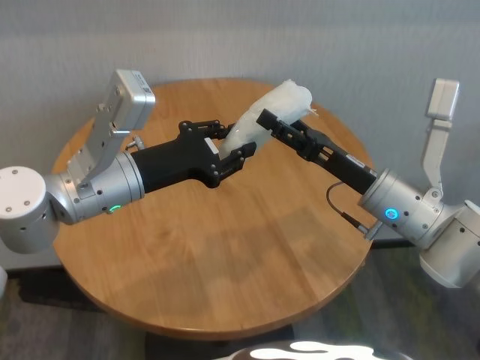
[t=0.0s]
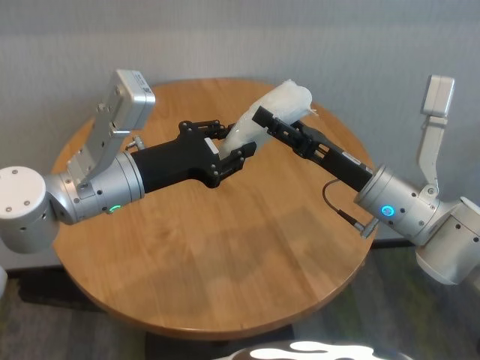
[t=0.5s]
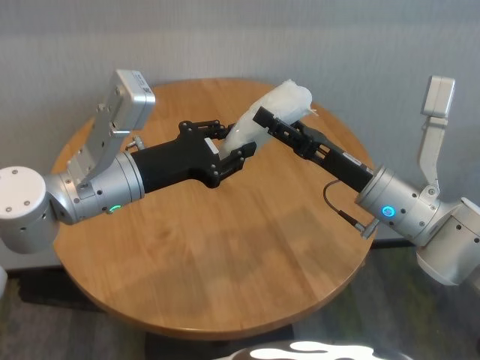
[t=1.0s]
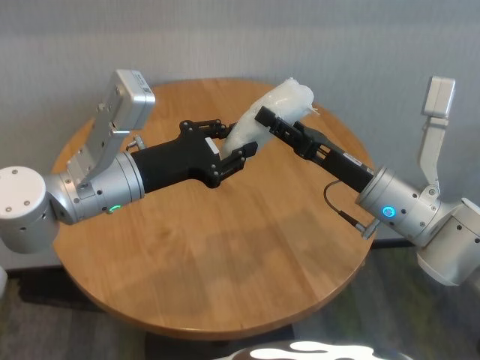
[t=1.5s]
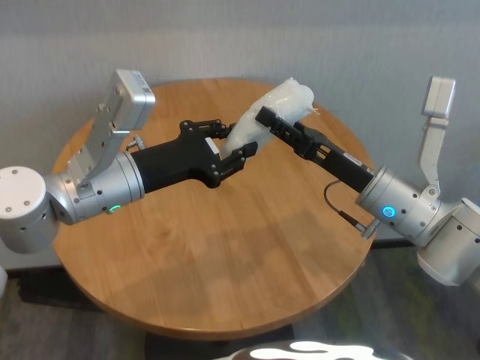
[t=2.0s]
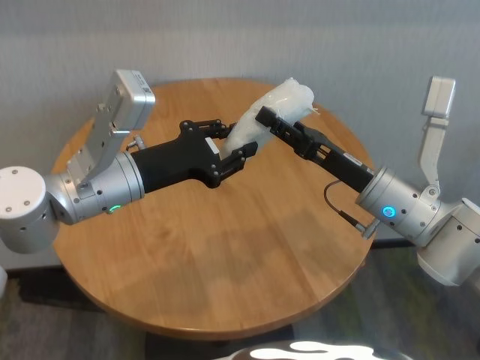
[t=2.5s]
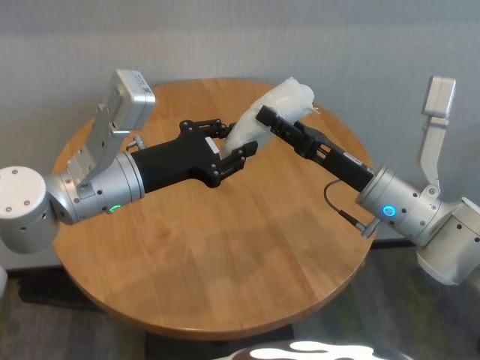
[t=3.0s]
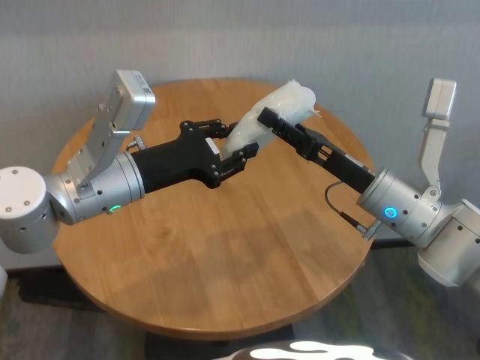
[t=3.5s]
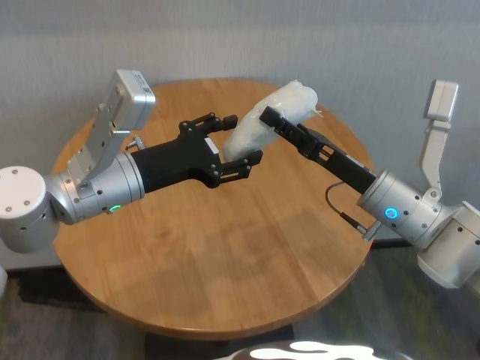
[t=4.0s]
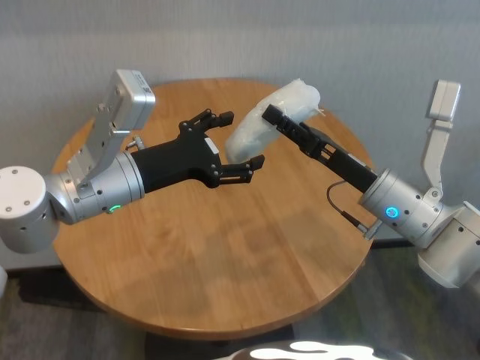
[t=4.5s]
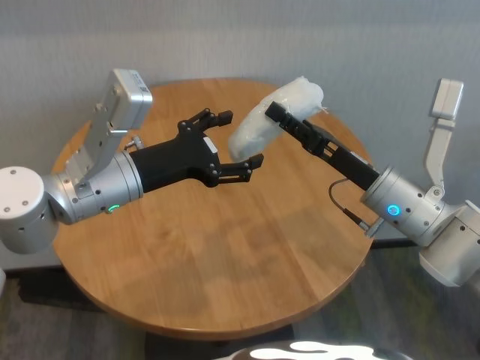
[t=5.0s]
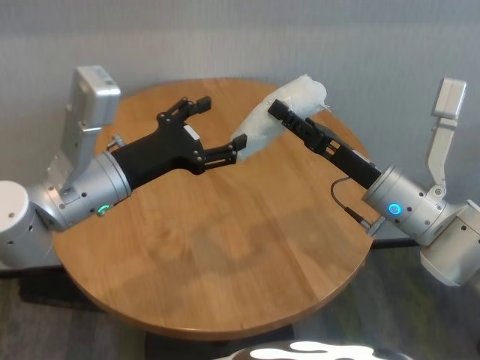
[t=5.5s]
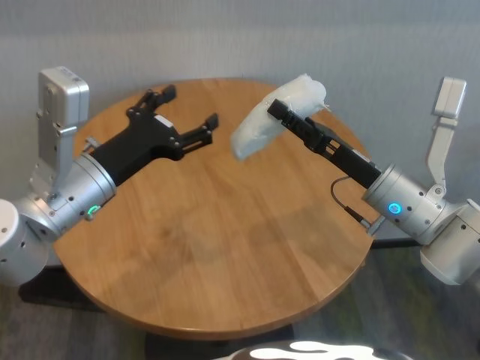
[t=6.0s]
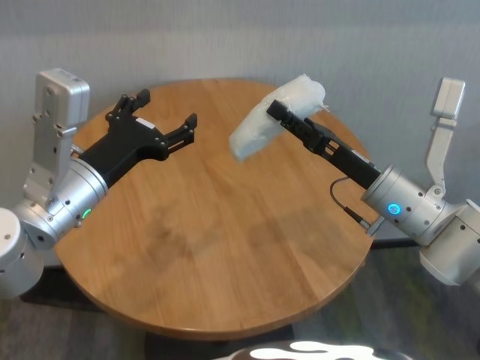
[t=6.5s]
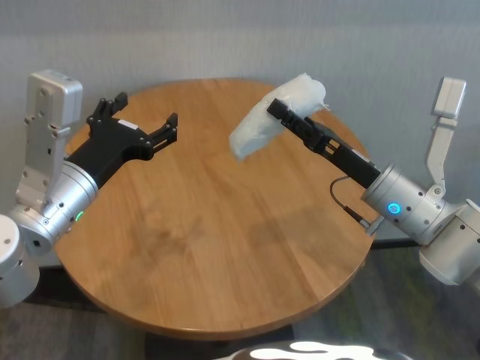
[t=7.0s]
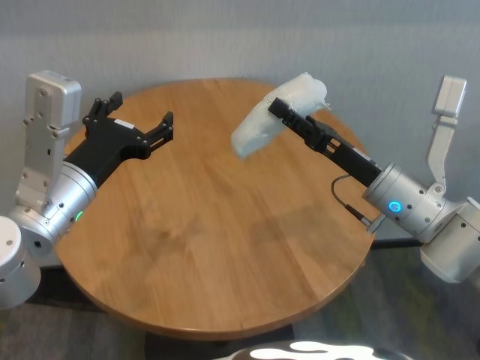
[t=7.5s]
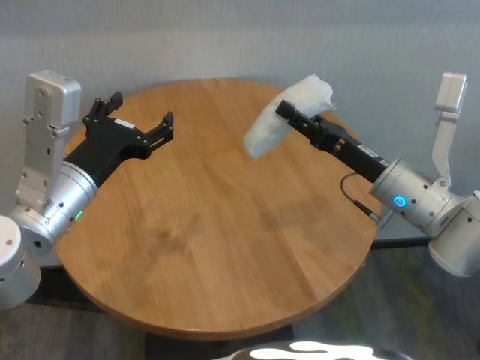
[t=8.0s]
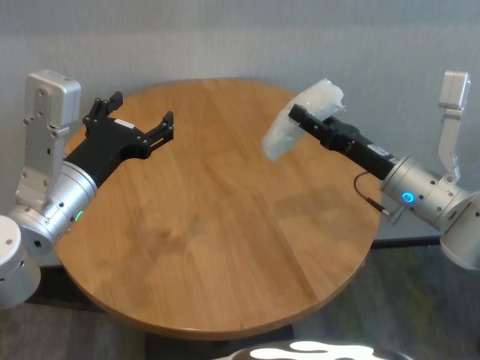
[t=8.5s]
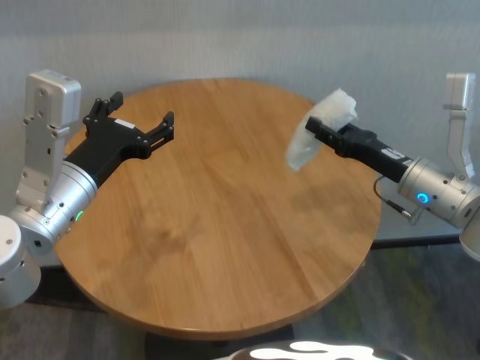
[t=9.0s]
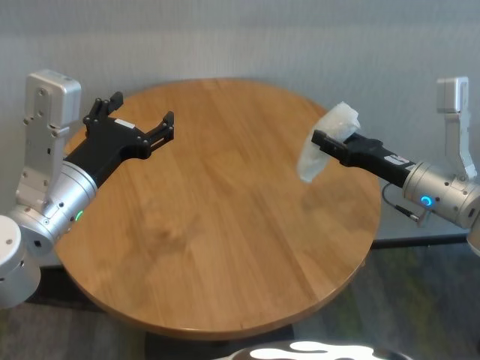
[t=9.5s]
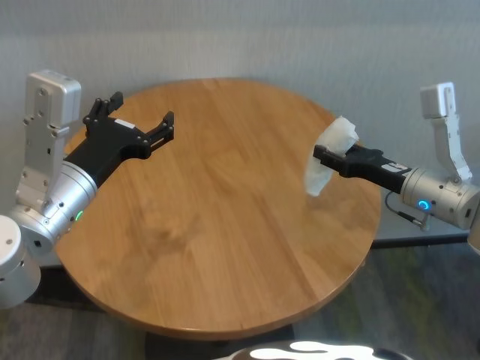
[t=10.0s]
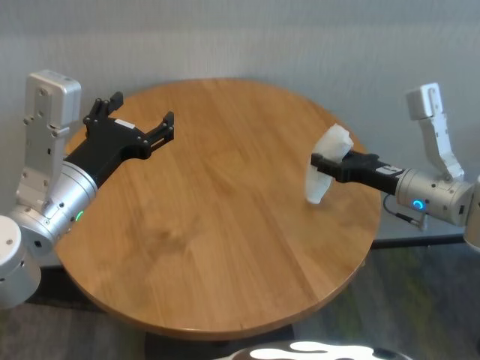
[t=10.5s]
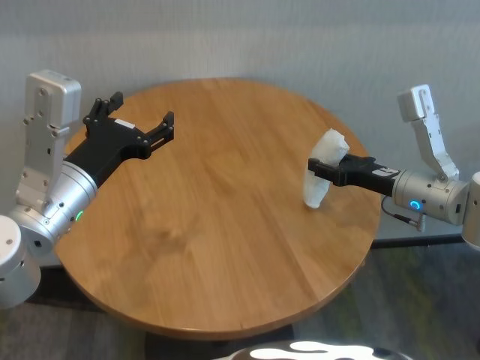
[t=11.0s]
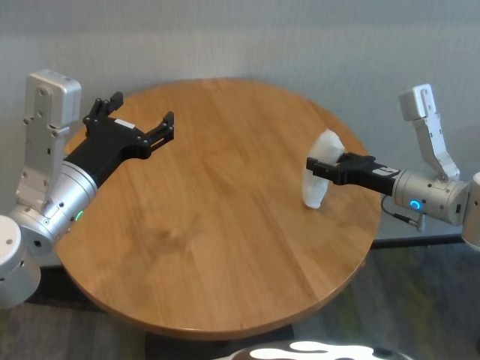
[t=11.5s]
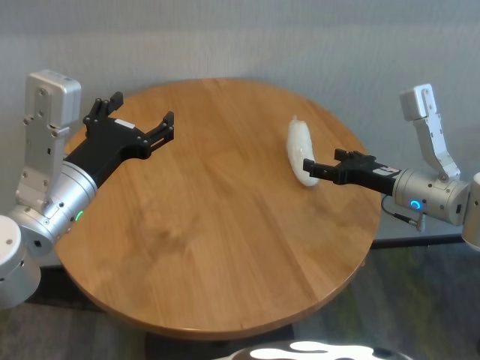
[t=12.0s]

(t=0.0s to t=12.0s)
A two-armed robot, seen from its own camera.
Task of the whole recording: One hand took the sandbag from the other hand and placed it on the table.
Step, t=0.0s - t=5.5s: Pass the paper ball to the right gripper.
Step, t=6.0s - t=11.5s: Place the paper ball on the table with right gripper.
